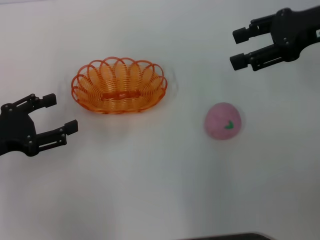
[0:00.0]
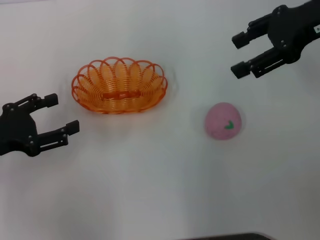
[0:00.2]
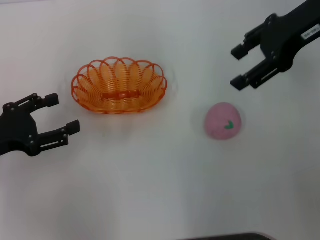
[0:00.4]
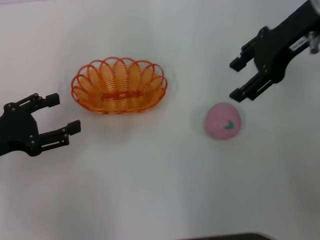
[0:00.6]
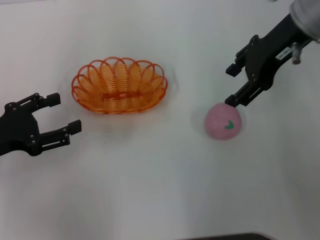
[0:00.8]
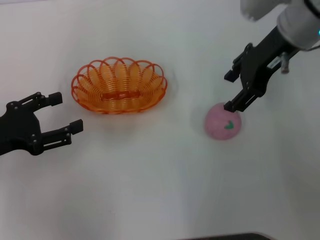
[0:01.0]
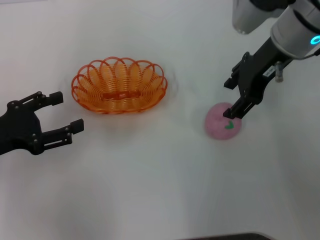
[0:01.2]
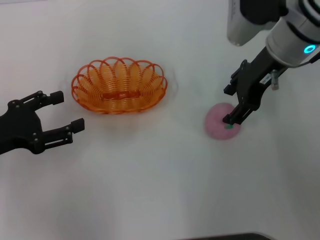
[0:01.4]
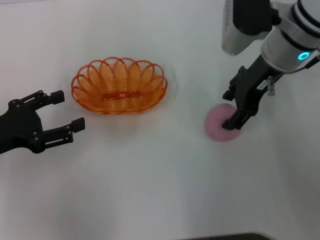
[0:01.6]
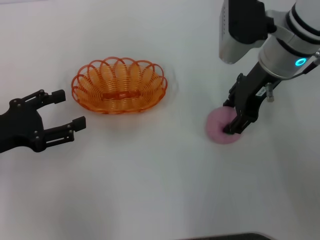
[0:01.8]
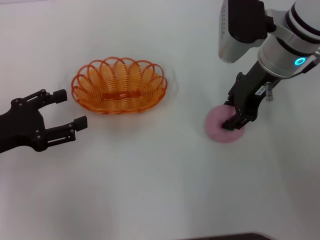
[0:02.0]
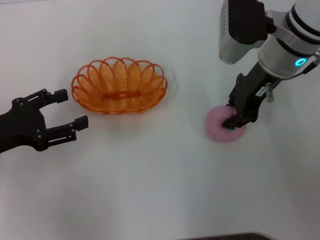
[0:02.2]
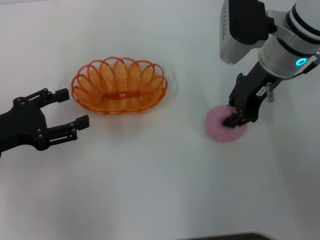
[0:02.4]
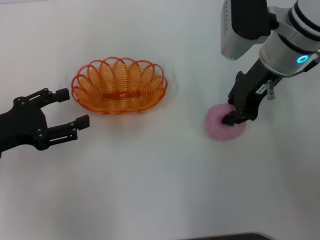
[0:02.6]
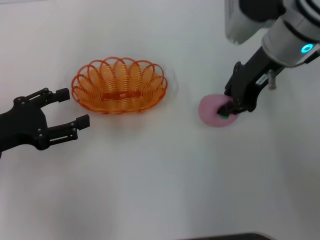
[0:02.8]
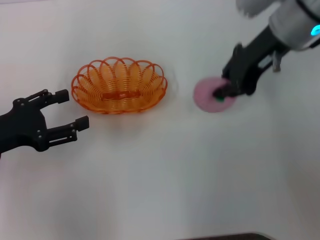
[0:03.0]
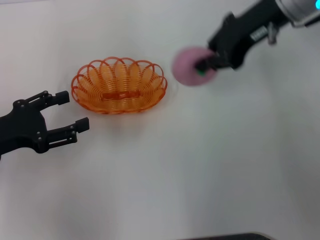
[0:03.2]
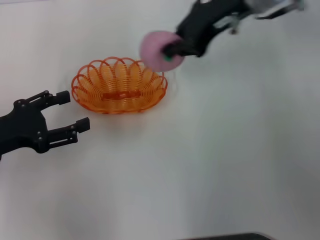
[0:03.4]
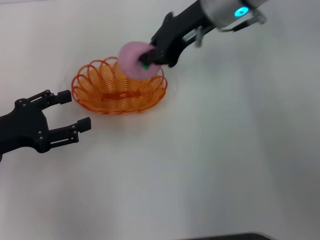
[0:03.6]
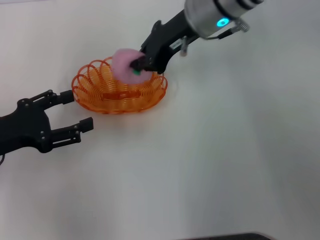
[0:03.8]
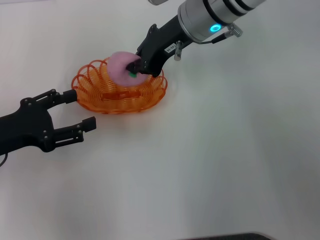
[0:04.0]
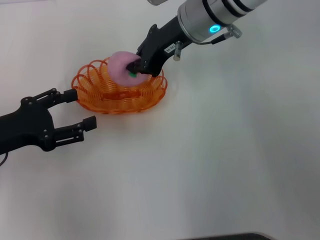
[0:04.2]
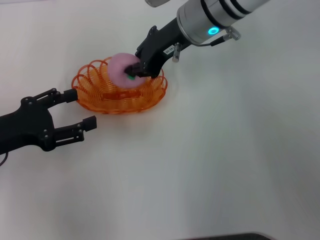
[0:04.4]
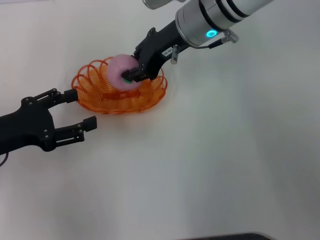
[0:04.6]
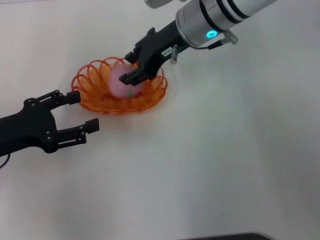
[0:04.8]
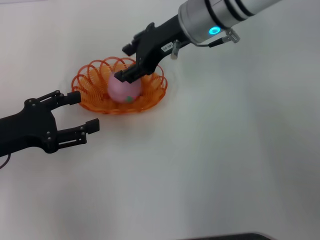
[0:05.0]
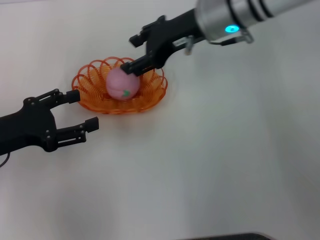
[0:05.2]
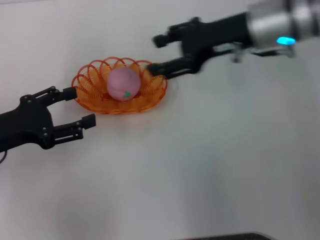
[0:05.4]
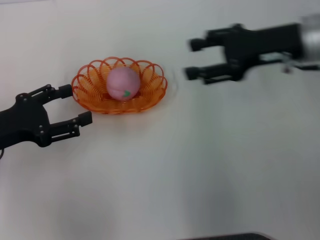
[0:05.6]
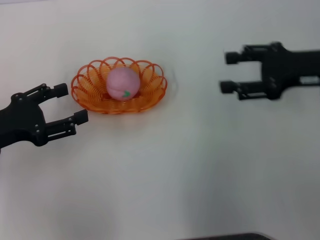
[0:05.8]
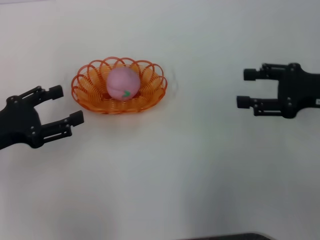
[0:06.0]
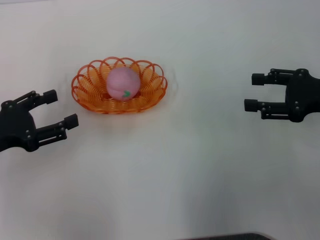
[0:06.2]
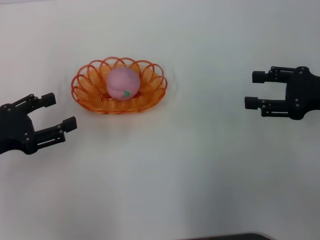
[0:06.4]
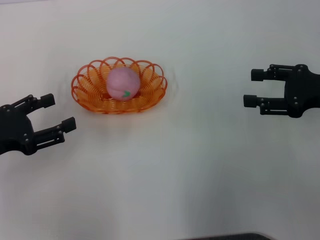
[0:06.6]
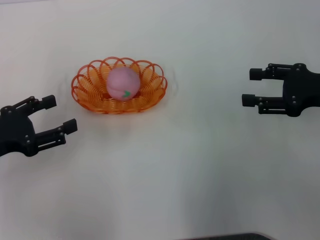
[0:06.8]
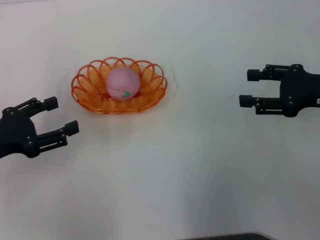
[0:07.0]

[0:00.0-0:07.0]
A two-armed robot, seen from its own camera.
Step, 0:00.0 to 0:02.8: Pick up the peach with the right gripper.
Step, 0:03.2 to 0:05.2: Place the peach into the basket with the right gripper.
0:00.0 to 0:01.4: The right gripper travels to the left by roughly 10 cm.
0:01.4 to 0:02.8: The right gripper closes its fingers.
0:02.8 to 0:04.2: The right gripper goes roughly 10 cm to the left.
0:04.2 to 0:05.6: The right gripper shifts roughly 15 cm to the right and backward, and opens.
0:05.6 to 0:07.0: The right gripper heads to the right, backward and downward, covering roughly 10 cm.
